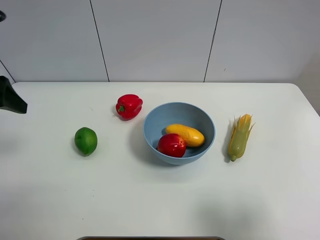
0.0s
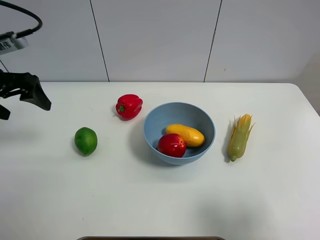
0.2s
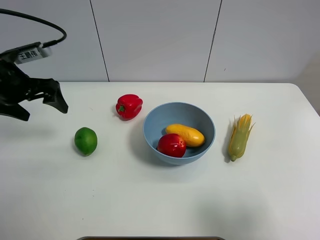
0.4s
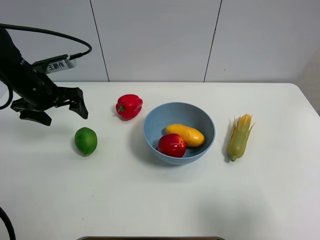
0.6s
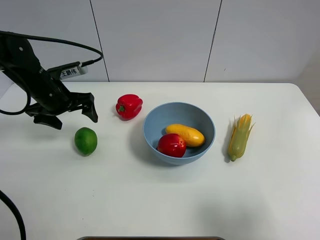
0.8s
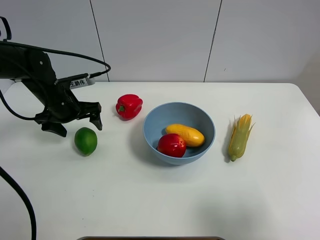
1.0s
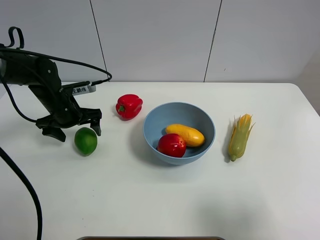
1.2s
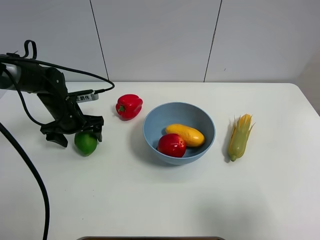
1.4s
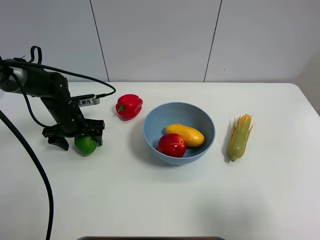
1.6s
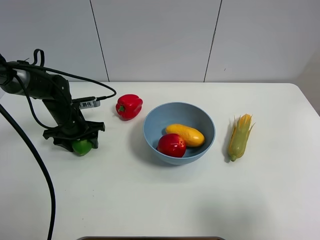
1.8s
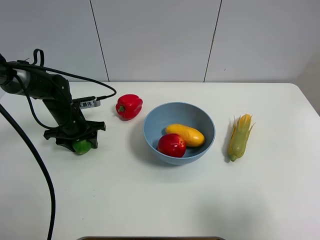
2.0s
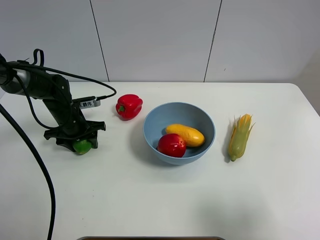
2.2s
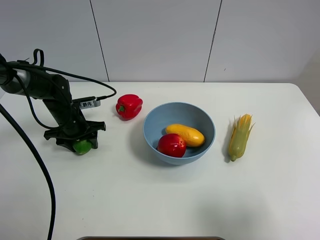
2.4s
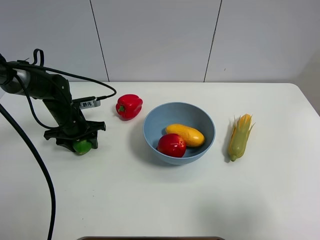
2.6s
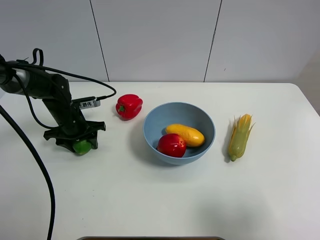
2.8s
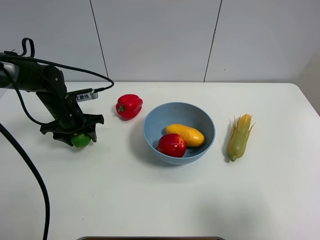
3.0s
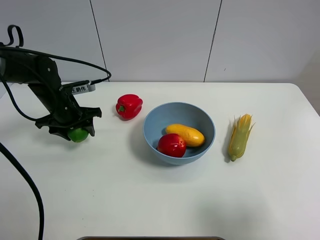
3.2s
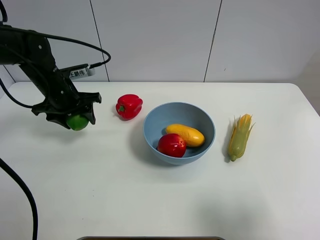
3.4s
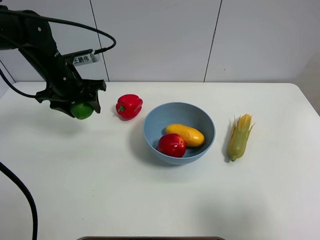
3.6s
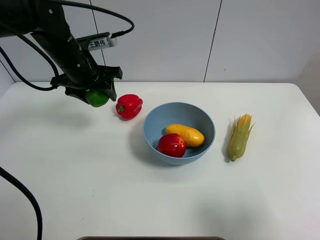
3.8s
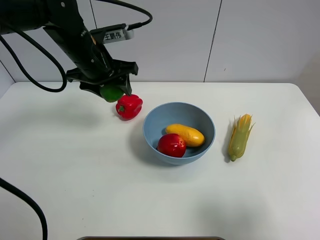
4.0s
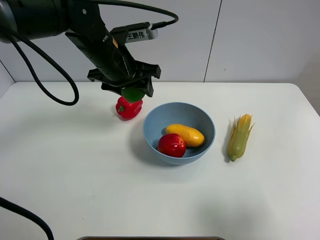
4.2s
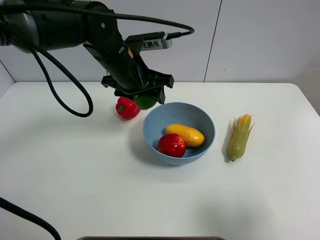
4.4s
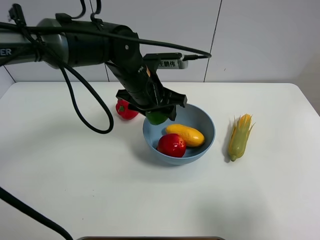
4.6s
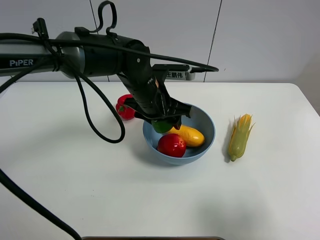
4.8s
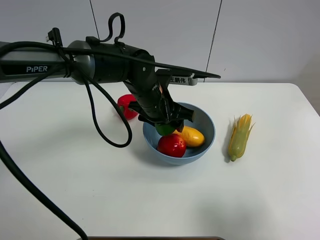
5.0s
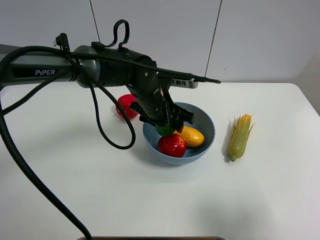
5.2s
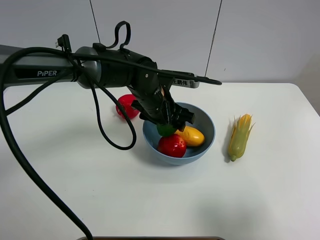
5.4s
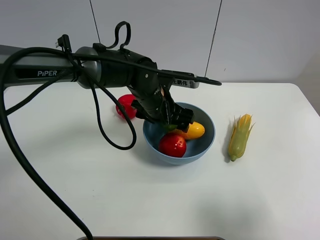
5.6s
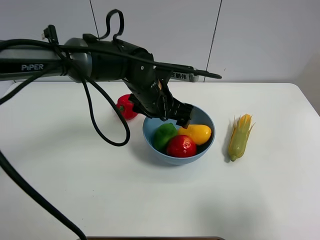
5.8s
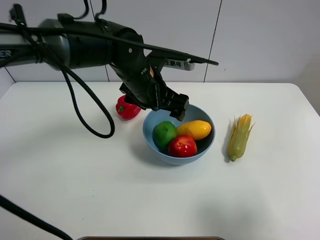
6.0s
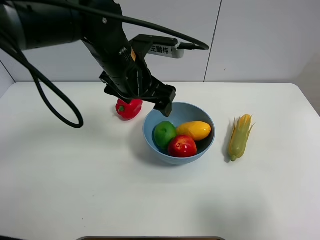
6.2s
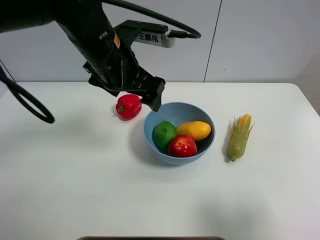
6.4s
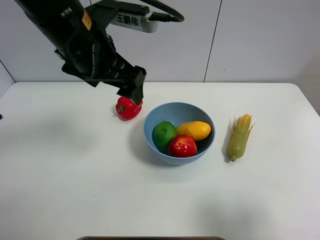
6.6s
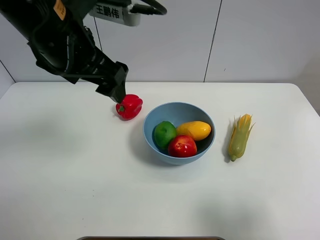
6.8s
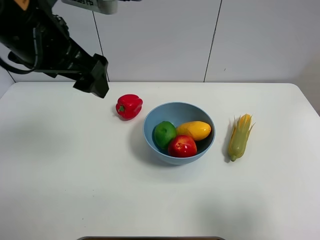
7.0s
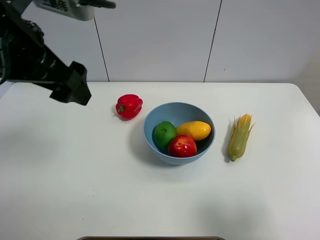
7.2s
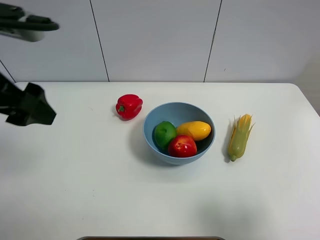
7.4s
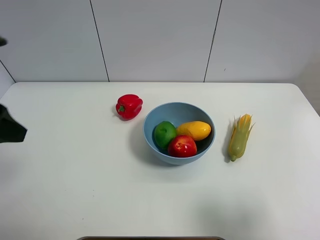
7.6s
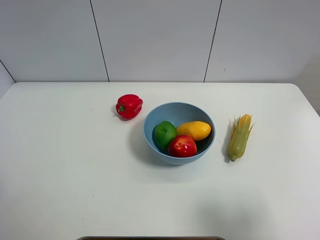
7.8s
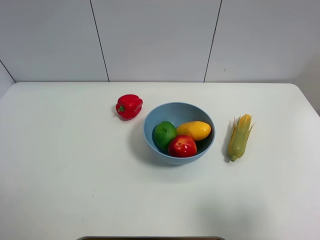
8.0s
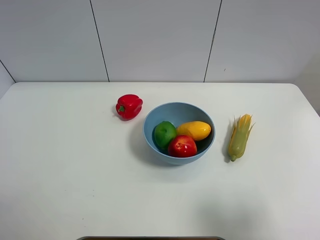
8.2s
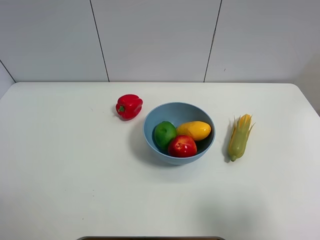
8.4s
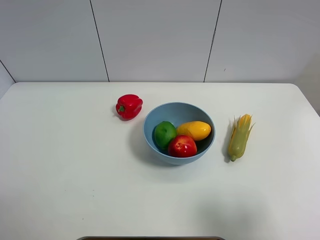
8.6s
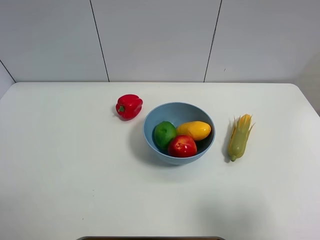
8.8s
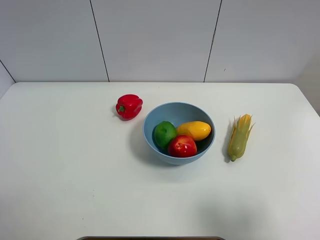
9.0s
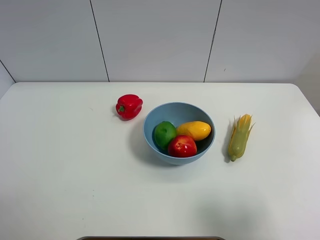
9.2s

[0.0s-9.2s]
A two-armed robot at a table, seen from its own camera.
Task of the whole recording: Put the three fruits on the table into a bowl.
Step, 0.0s to 2.0s: Grasp the green lemon with left gripper.
Step, 2.2s to 5.8s: Place the green lemon in the blue bowl with left gripper.
0.0s to 1.6s: The left gripper goes roughly 25 cm downward, forward and to the right.
1.6s to 3.0s: The left gripper closes.
3.0s to 4.6s: The left gripper travels to the right and upward by some 25 cm.
4.6s to 6.2s: The left gripper travels upward by some 5 cm, and opens.
6.2s to 7.6s: The left gripper is displaced to the left and backward by approximately 25 cm.
7.6s to 9.2s: The left gripper travels backward and downward by about 15 cm.
